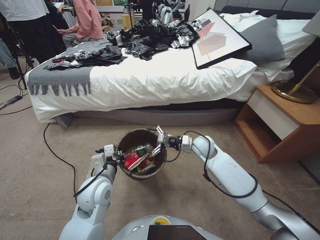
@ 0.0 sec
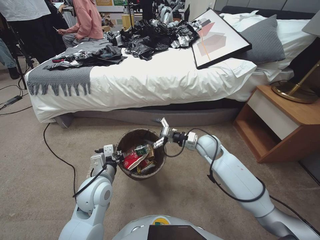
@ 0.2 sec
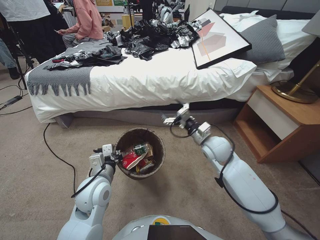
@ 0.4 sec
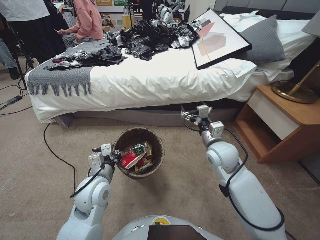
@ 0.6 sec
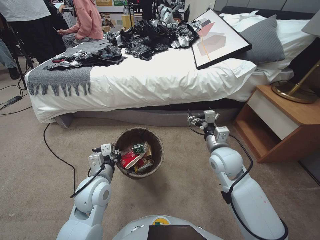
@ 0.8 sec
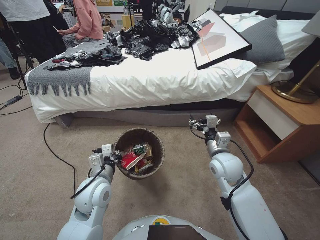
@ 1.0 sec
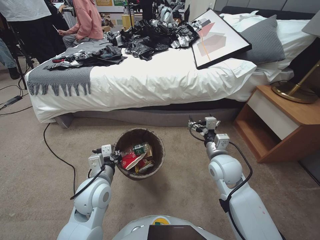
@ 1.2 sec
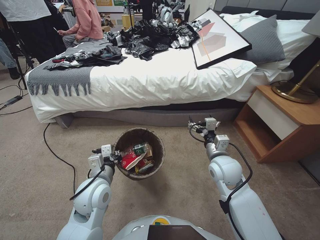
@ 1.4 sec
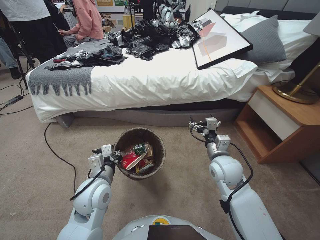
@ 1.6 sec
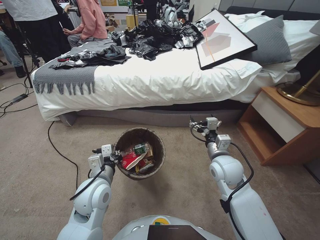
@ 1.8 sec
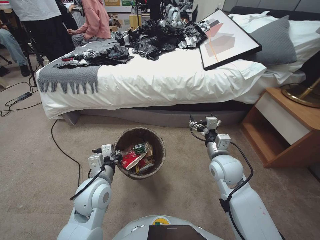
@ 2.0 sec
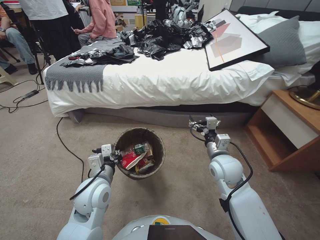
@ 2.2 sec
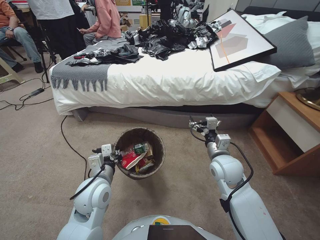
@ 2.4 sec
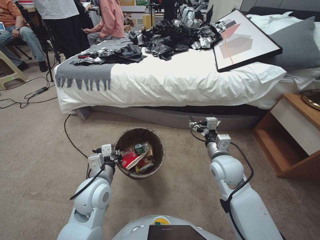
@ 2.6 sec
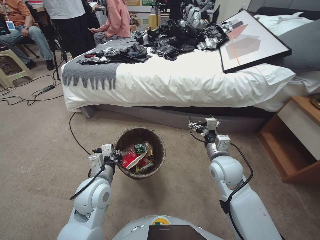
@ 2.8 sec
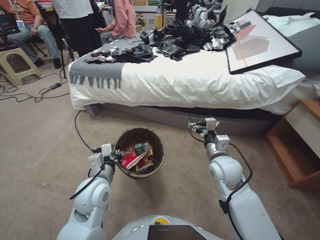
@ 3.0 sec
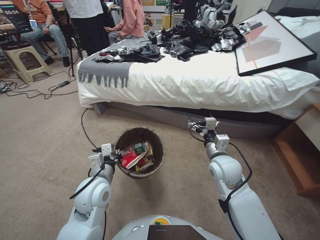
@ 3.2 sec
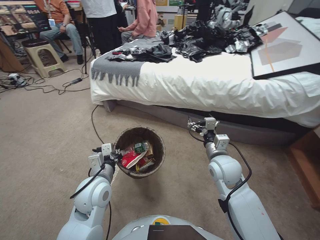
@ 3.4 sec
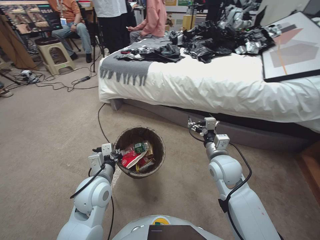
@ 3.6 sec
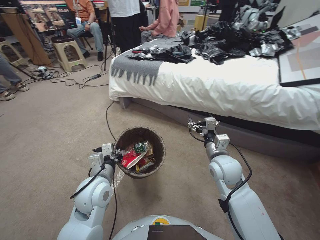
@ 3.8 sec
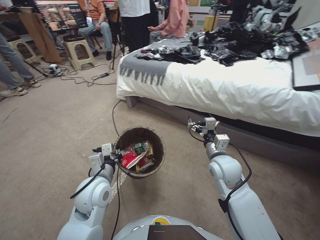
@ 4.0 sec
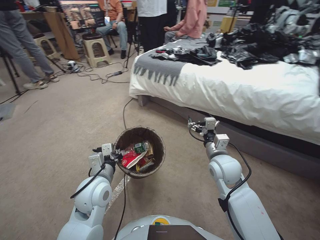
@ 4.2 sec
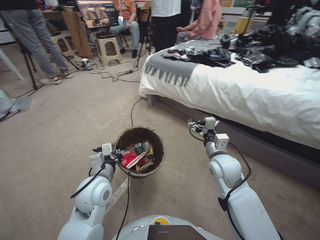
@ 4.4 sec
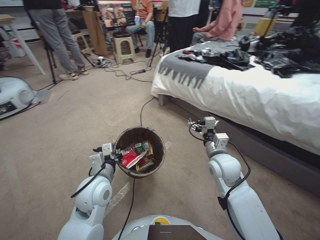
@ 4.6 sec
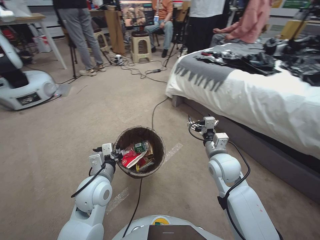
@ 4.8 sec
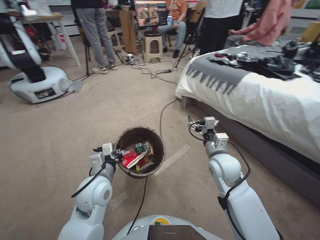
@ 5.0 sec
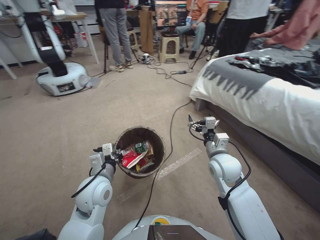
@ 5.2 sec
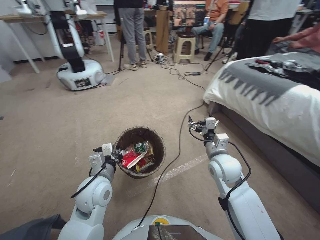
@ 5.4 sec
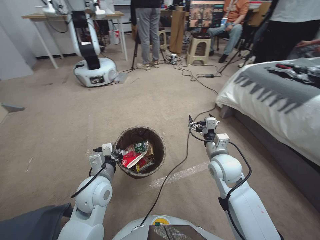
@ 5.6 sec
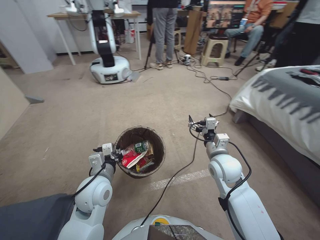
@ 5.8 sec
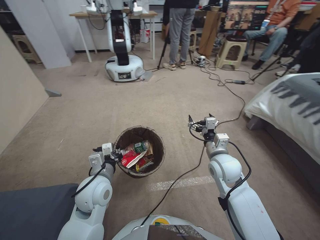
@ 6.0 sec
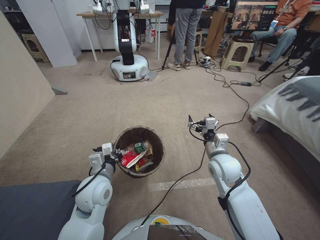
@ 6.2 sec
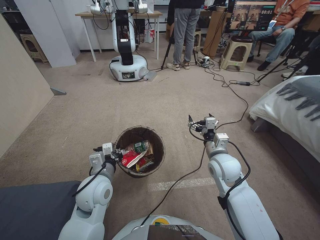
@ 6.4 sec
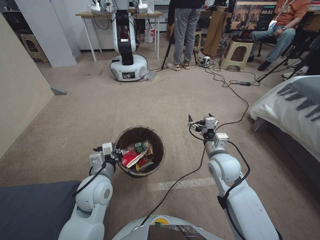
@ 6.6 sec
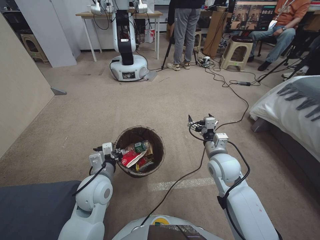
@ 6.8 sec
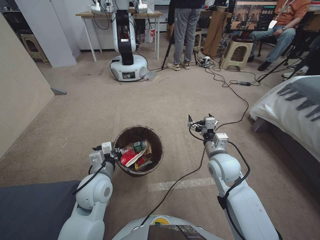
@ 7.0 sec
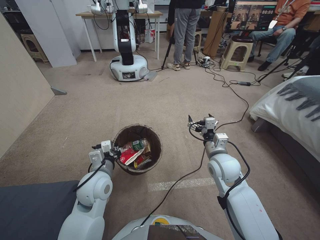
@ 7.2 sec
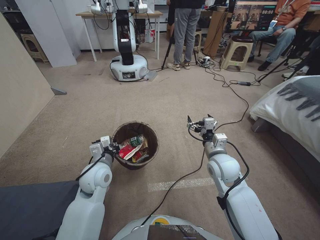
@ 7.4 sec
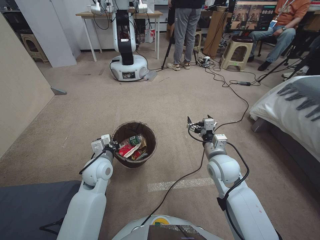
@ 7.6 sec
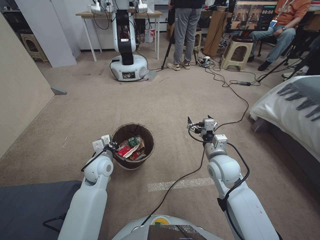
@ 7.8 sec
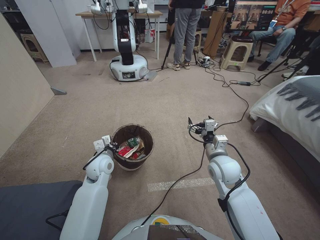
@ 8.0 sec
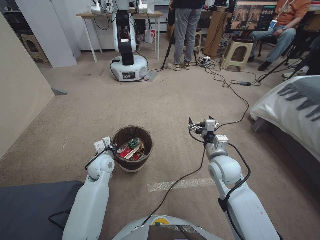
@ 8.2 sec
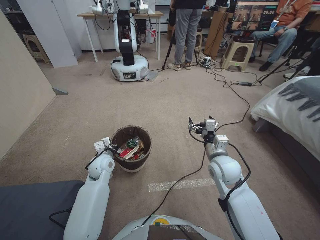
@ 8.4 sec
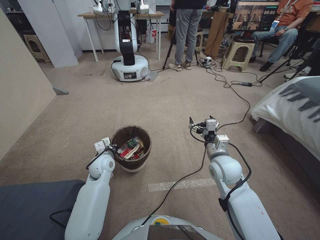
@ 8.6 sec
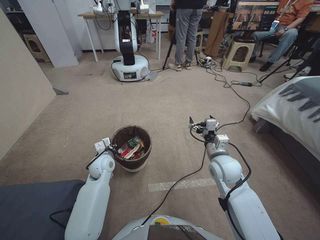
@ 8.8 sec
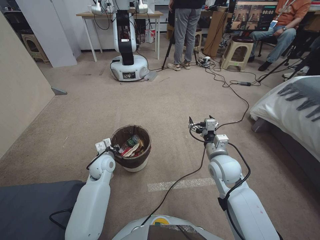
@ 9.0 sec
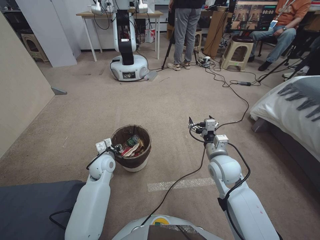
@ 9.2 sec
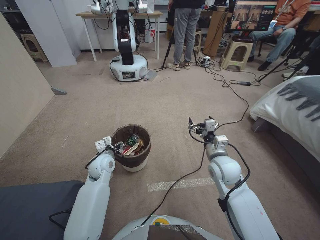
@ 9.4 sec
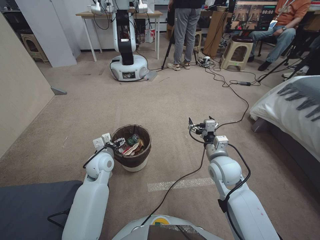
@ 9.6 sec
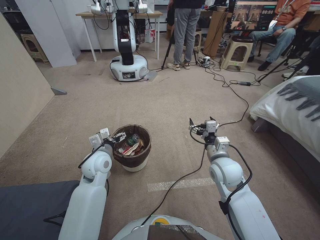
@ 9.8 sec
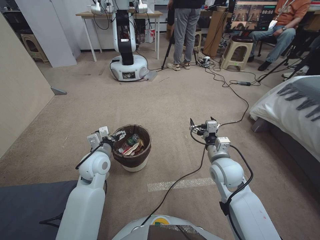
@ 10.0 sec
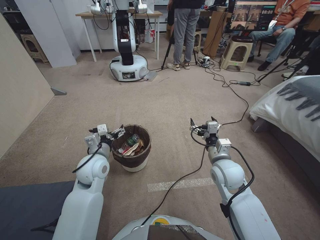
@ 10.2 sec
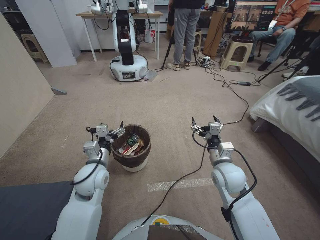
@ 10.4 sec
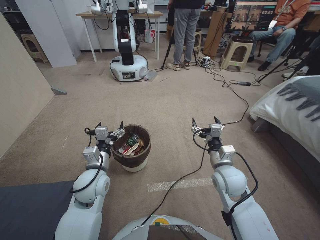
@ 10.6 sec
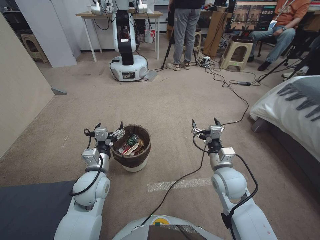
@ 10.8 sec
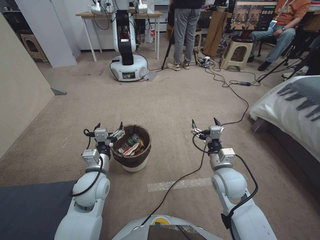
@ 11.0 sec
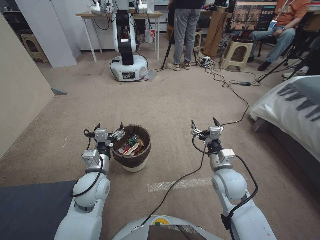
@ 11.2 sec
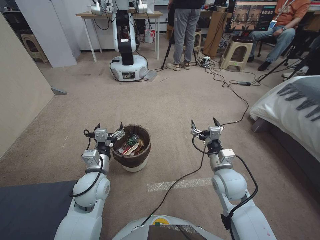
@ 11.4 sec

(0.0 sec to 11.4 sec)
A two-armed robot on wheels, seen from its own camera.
Task of the whole recording: Pick up the trash bin, then pick up the garbage from the floor and place it into the trash bin.
0.0 sec - 1.4 sec: The right gripper goes roughly 15 cm backward and upward.
7.2 sec - 8.6 sec: The left gripper goes roughly 15 cm forward and downward.
8.6 sec - 10.0 sec: The left gripper opens.
10.0 sec - 11.4 sec: The left gripper travels backward by about 10 cm.
